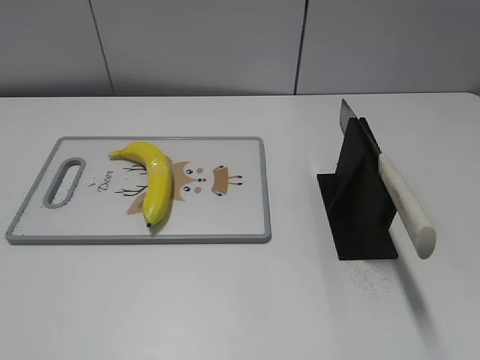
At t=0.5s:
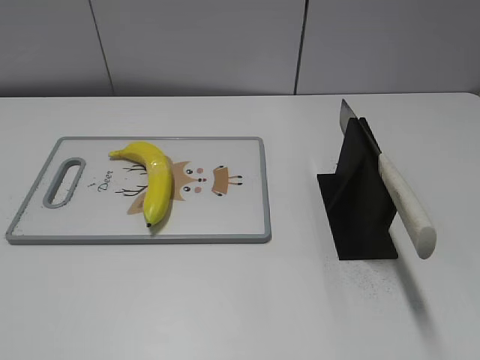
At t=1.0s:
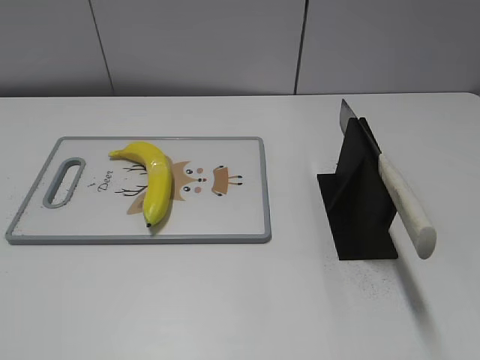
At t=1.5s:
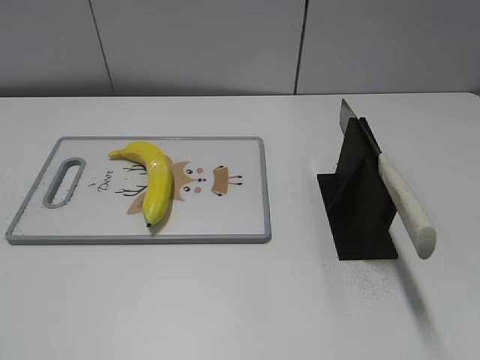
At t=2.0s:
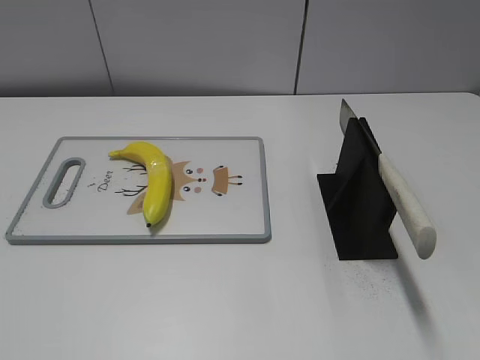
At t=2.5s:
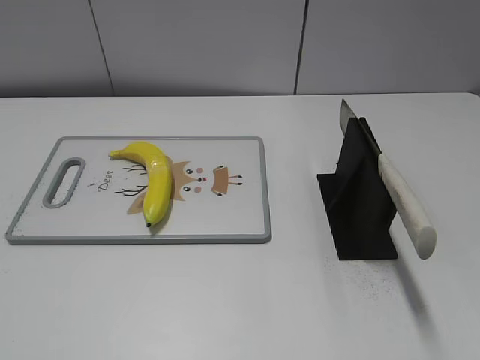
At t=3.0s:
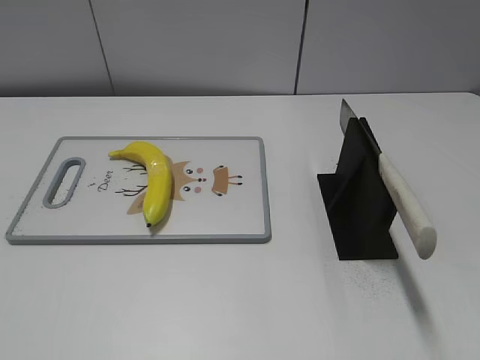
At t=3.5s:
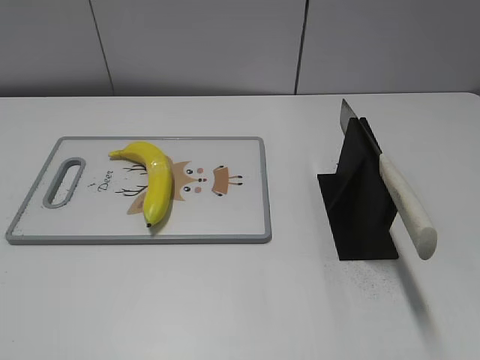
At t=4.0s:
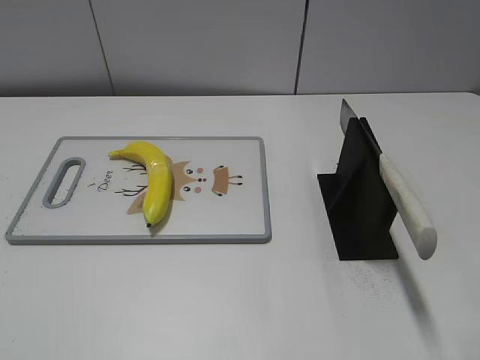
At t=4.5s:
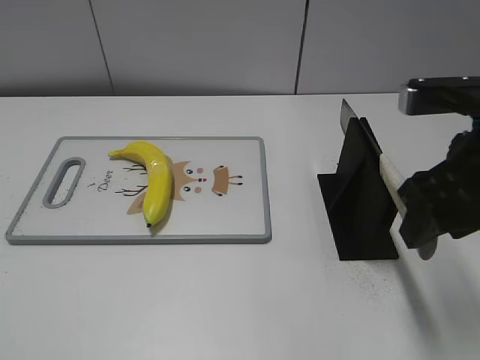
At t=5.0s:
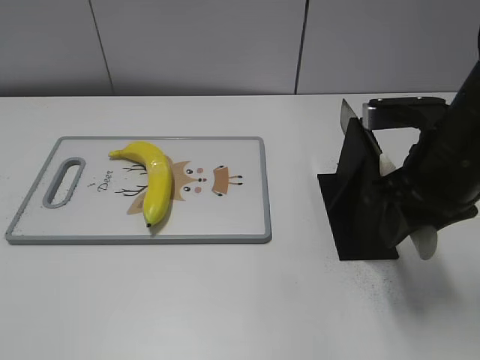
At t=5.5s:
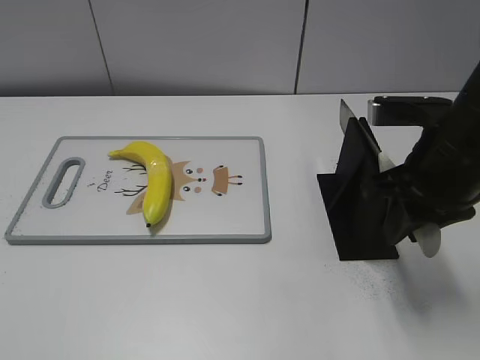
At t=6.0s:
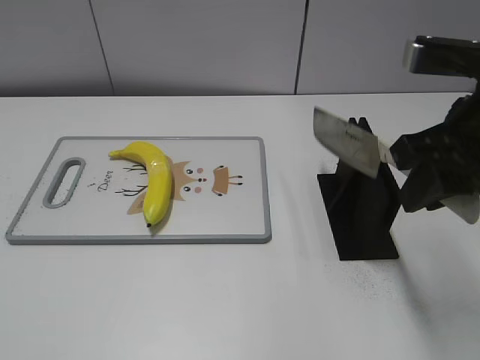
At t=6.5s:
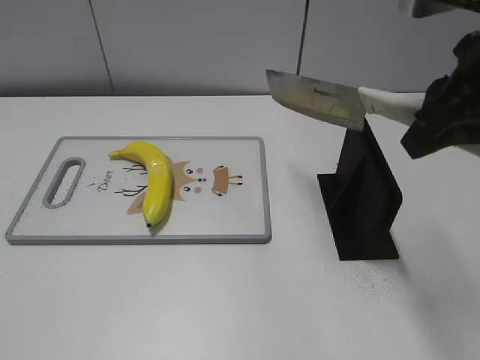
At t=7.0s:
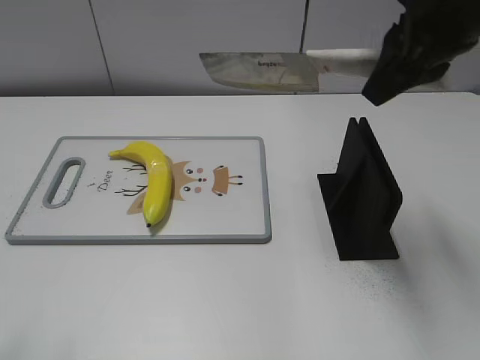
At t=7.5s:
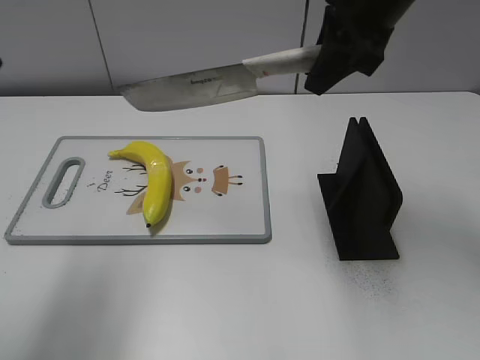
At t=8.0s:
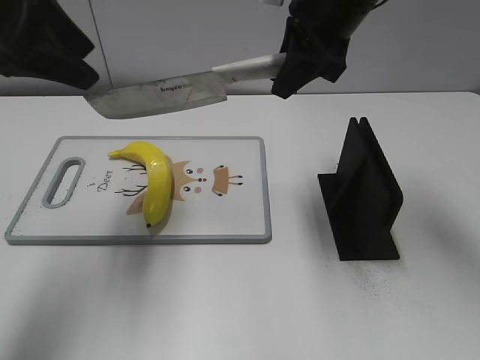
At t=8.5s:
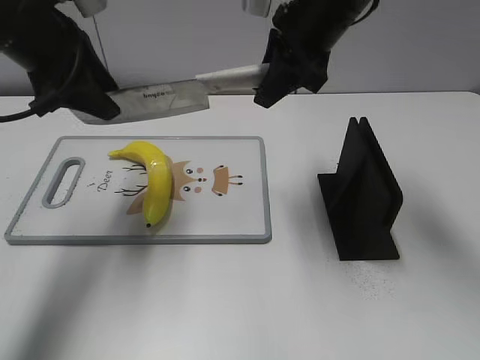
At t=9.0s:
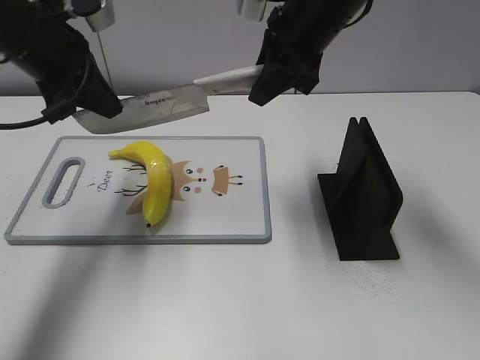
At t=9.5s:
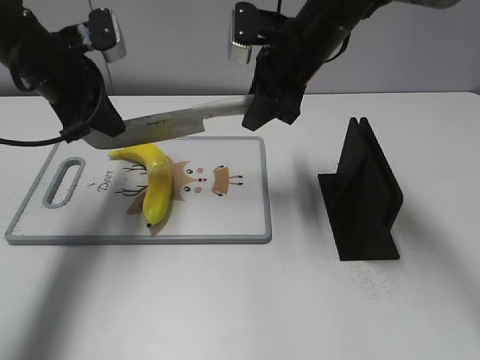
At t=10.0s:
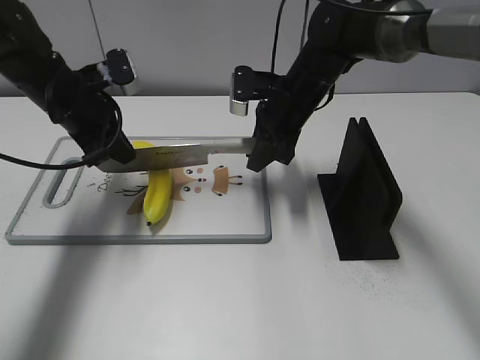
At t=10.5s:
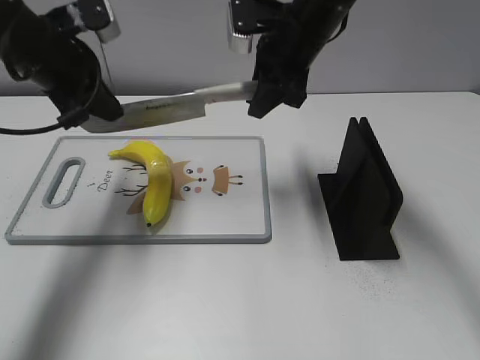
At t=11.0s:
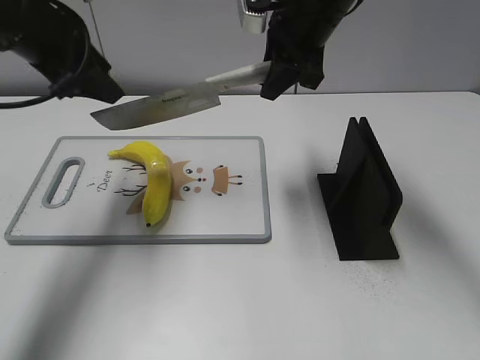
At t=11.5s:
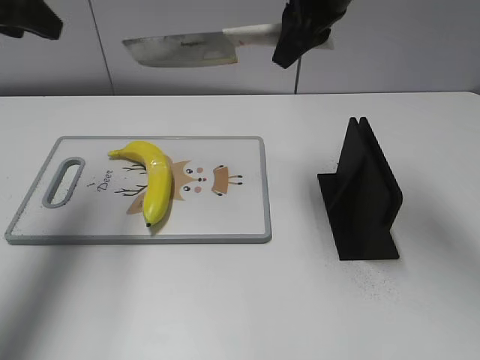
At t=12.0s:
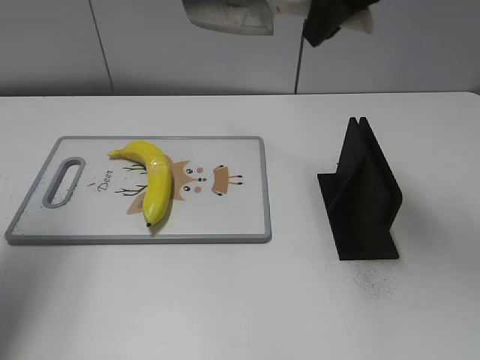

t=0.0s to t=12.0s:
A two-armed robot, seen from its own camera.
Task of the whole recording: cut plastic banana.
Step, t=0.0s to t=6.0s: Grab the knife handle with your right hand.
Step, t=6.5s to t=10.5s: Lift the knife with your right hand.
t=4.0s to t=6.0s: The right gripper goes about 5 cm forward, and closes up.
t=6.0s to t=8.0s: The left gripper shifts roughly 35 cm forward. Meanwhile the right gripper goes approximately 20 cm forward and to the left.
t=8.0s to t=10.0s: The left gripper is displaced downward and forward by about 20 cm, and closes up, while the right gripper moves downward, some 15 cm.
t=10.0s to t=12.0s: The left gripper heads upward, backward and to the left, covering roughly 25 cm, and opens. Meanwhile the right gripper goes some 20 cm upward.

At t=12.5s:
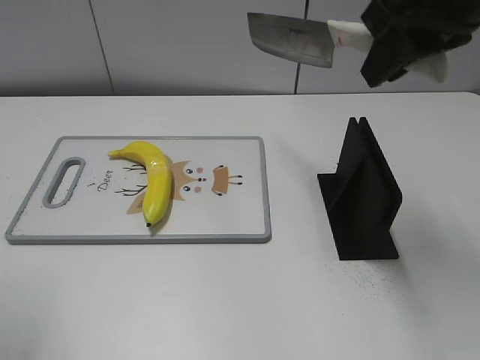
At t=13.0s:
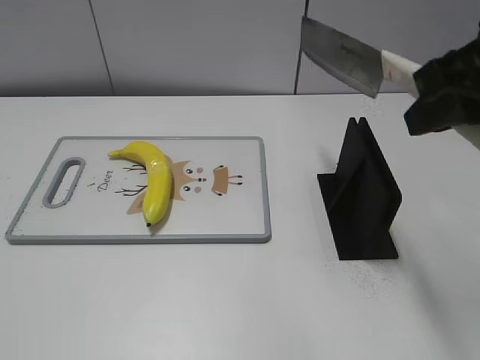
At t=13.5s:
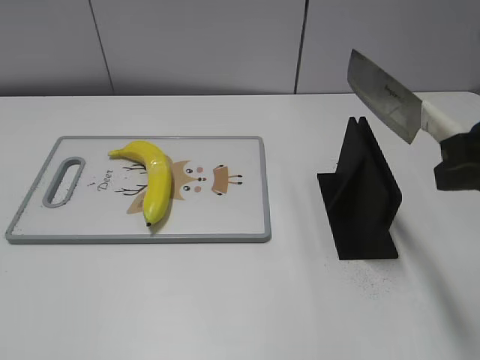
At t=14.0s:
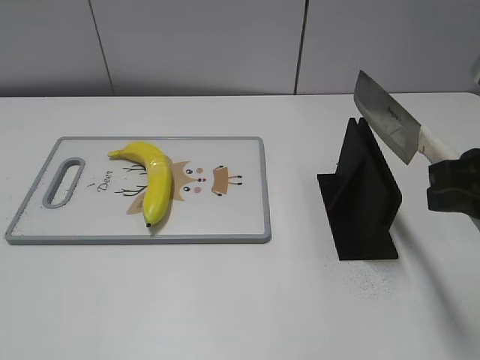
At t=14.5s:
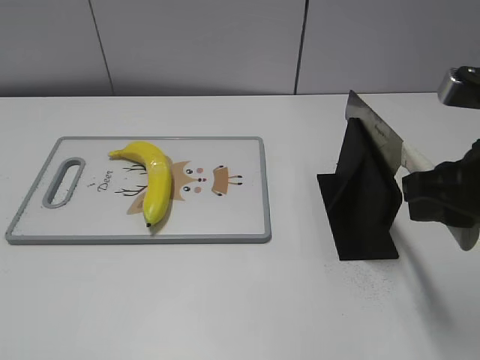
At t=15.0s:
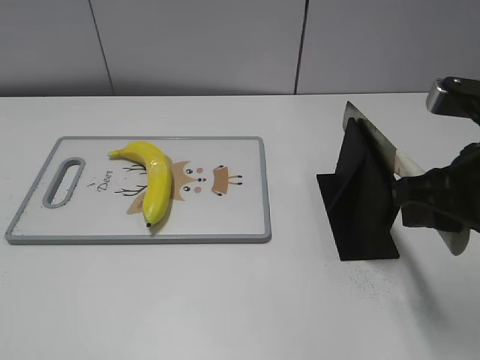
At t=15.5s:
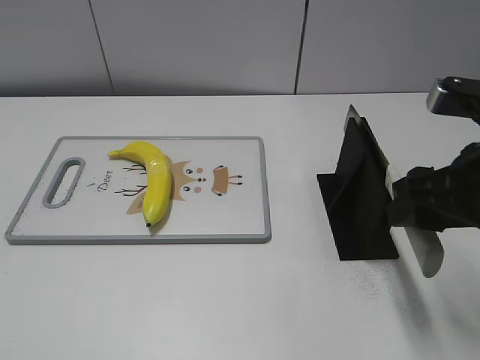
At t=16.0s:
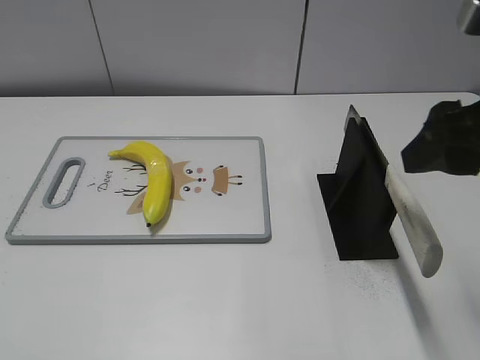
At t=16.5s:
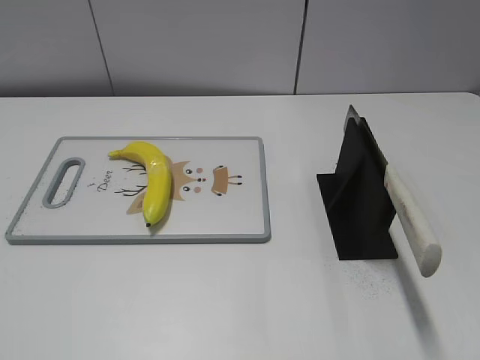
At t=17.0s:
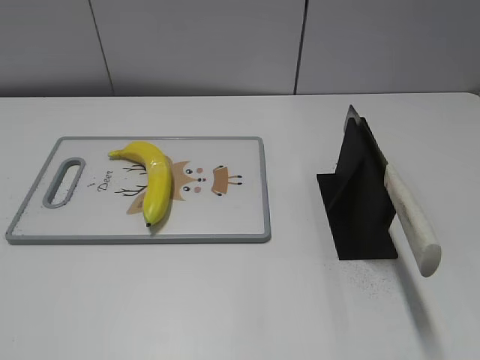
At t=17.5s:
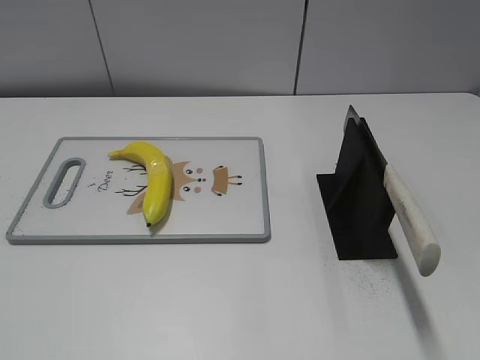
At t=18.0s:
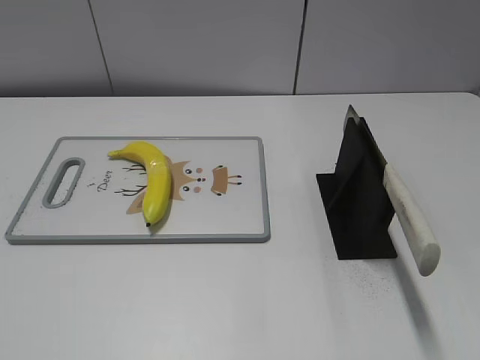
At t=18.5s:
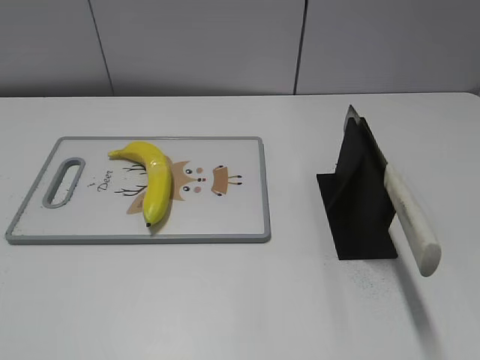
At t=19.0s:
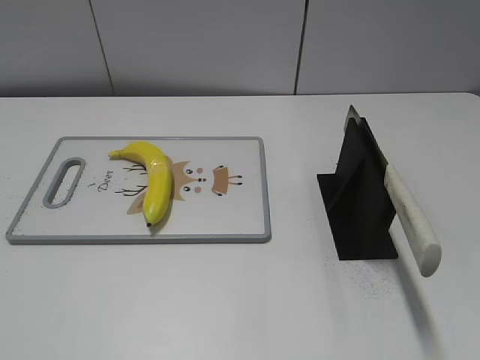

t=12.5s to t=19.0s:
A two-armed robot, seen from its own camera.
Task of the whole recording: cut plastic banana.
Step, t=12.5s to t=13.0s: Secure the blade with your left hand.
Step, t=13.5s to t=19.0s: Place the knife on the storage rack with your right hand.
t=12.5s to t=14.5s: The right gripper shifts approximately 15 cm downward and backward. Meanwhile the left gripper shifts some 15 cm backward and downward.
t=14.5s to t=17.0s: The right gripper heads backward and to the right, covering about 20 cm, and opens up.
